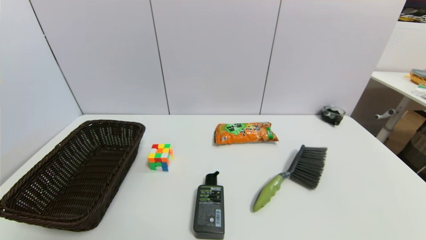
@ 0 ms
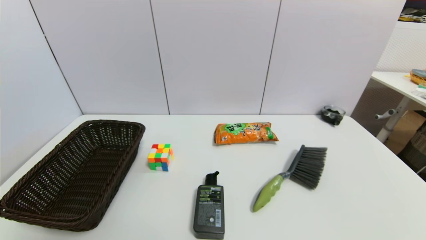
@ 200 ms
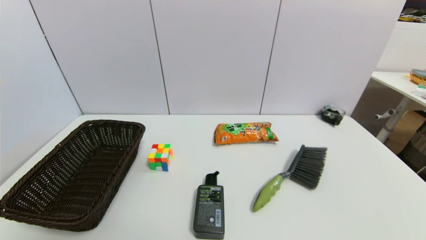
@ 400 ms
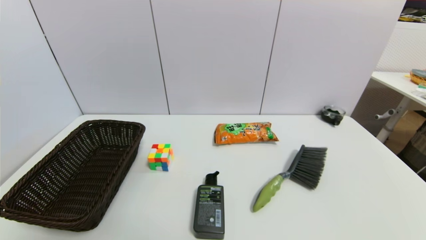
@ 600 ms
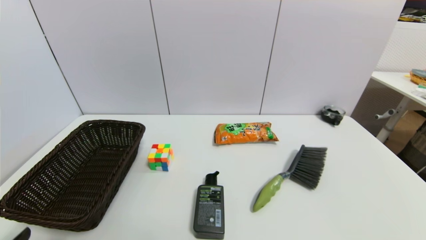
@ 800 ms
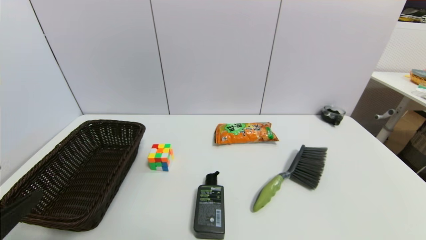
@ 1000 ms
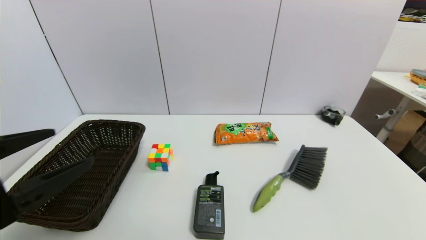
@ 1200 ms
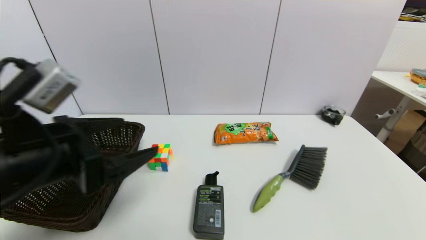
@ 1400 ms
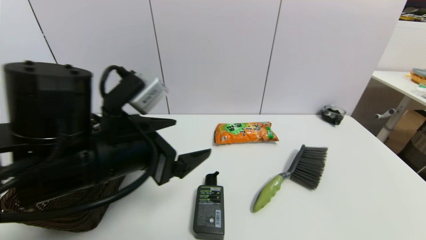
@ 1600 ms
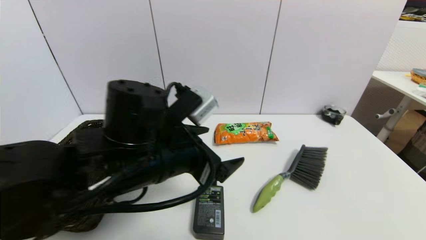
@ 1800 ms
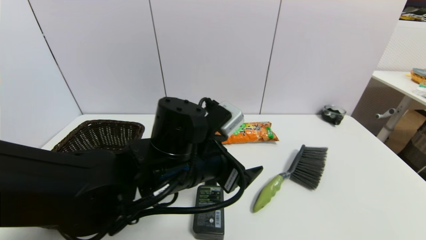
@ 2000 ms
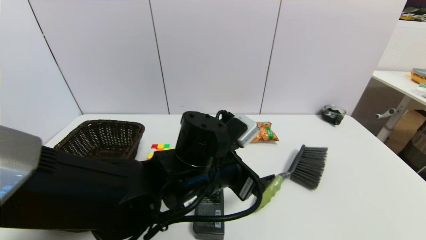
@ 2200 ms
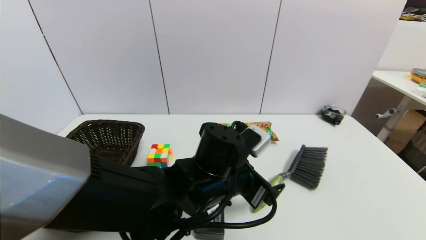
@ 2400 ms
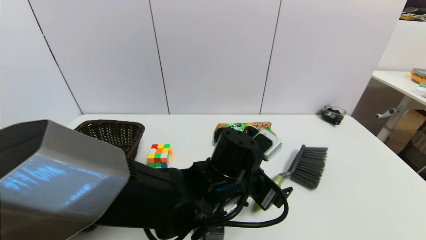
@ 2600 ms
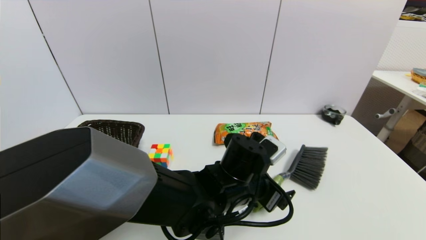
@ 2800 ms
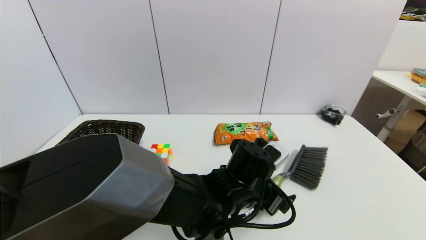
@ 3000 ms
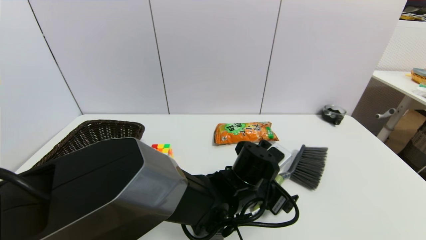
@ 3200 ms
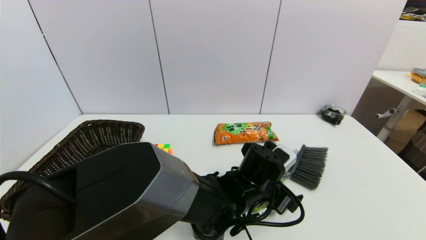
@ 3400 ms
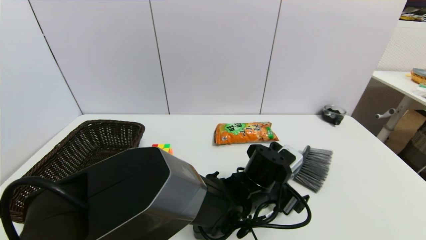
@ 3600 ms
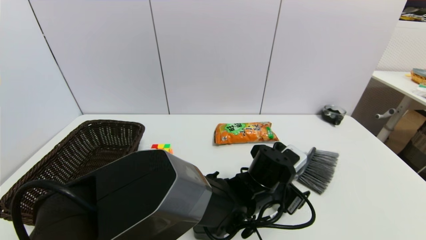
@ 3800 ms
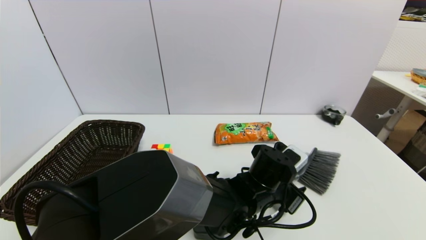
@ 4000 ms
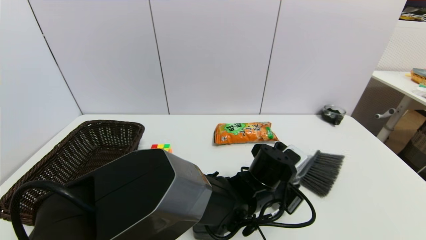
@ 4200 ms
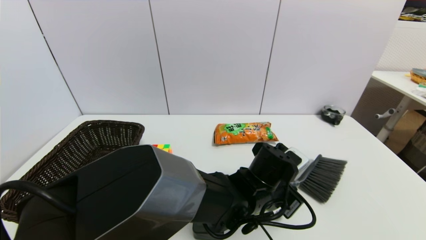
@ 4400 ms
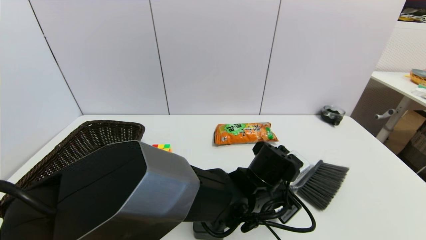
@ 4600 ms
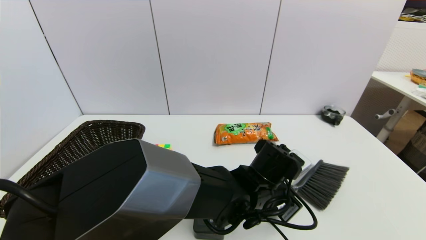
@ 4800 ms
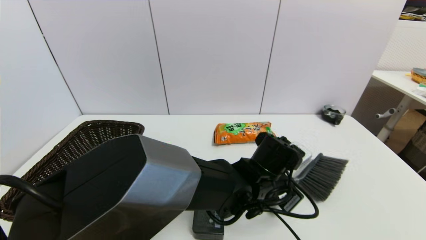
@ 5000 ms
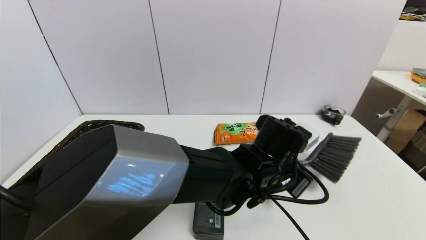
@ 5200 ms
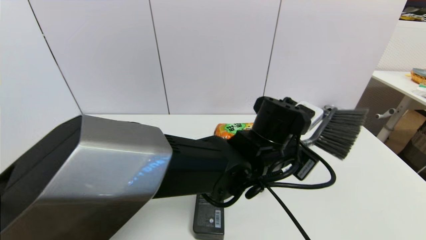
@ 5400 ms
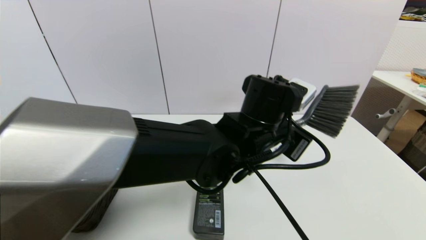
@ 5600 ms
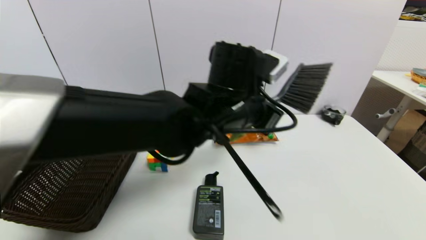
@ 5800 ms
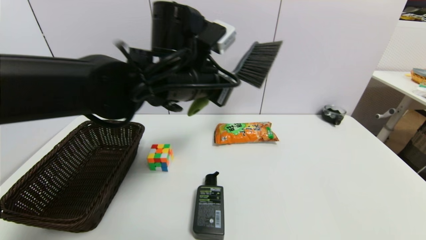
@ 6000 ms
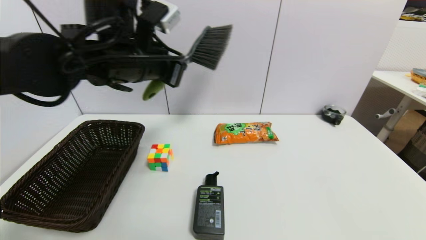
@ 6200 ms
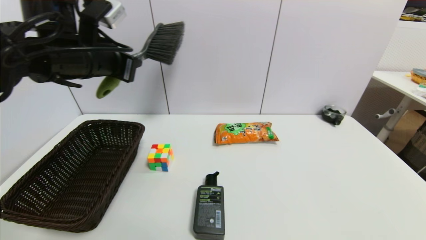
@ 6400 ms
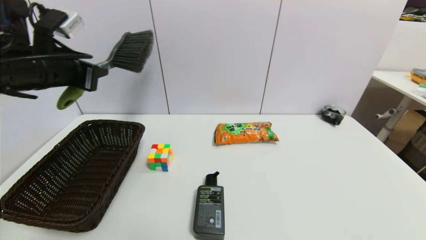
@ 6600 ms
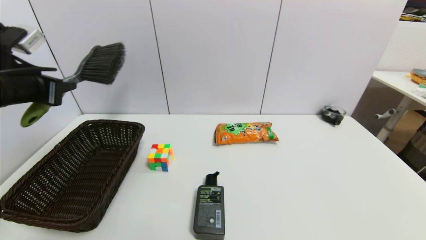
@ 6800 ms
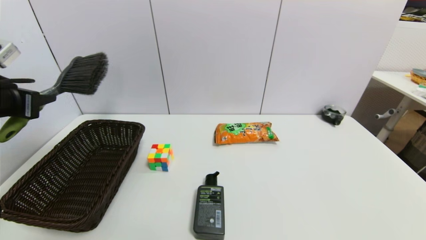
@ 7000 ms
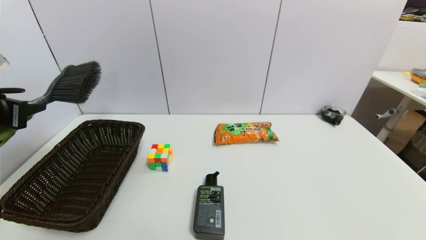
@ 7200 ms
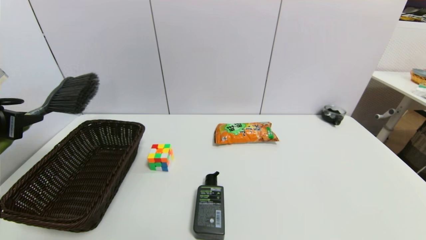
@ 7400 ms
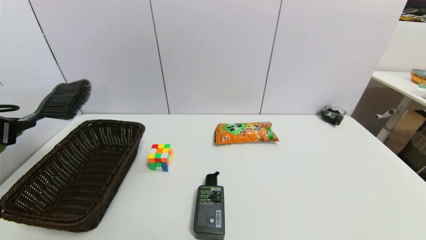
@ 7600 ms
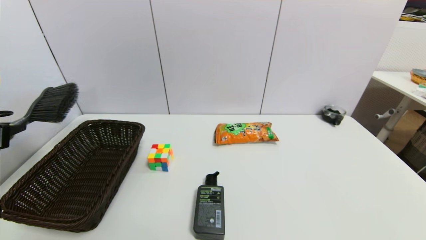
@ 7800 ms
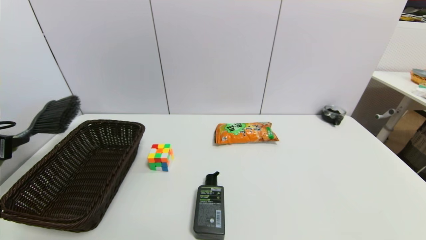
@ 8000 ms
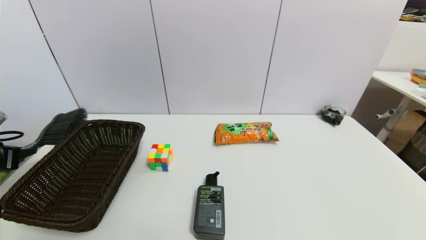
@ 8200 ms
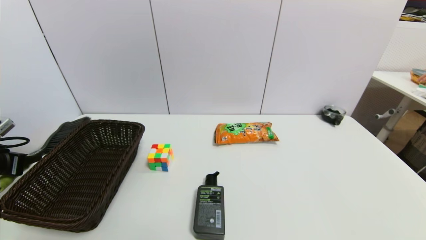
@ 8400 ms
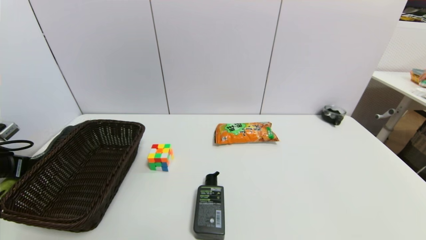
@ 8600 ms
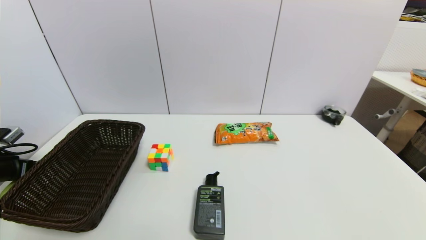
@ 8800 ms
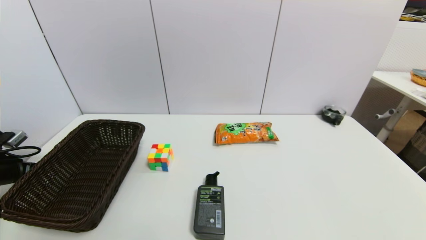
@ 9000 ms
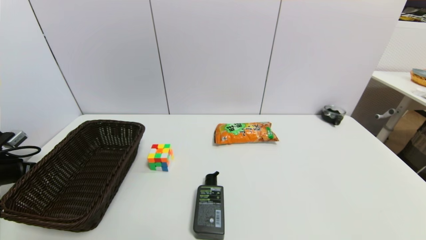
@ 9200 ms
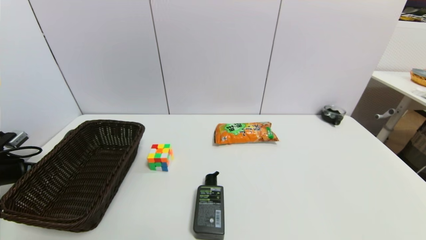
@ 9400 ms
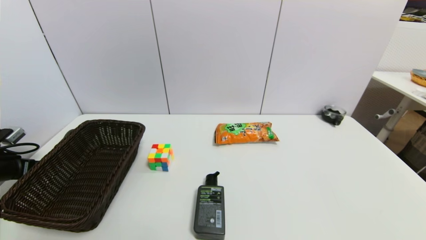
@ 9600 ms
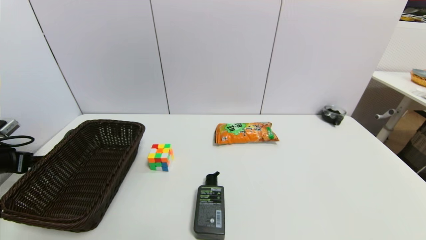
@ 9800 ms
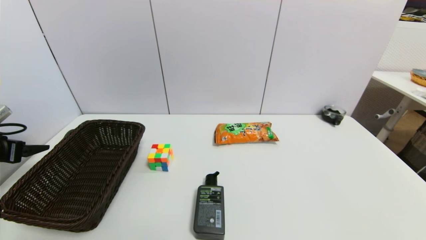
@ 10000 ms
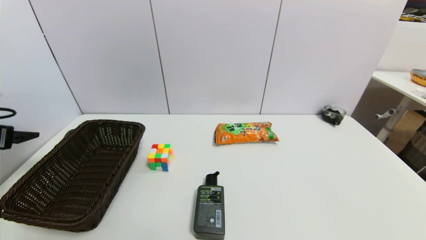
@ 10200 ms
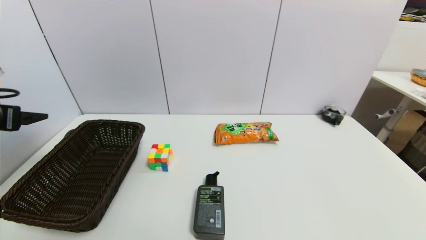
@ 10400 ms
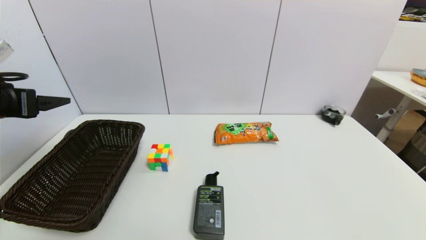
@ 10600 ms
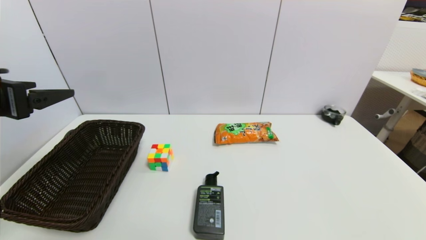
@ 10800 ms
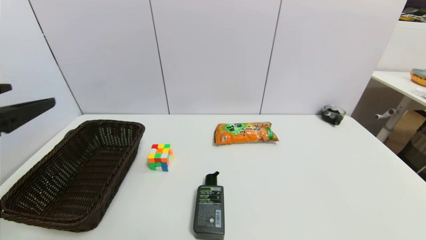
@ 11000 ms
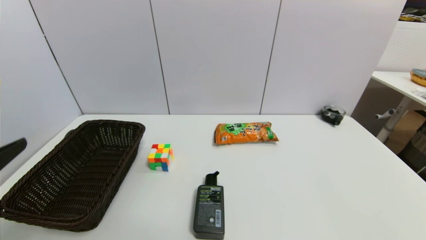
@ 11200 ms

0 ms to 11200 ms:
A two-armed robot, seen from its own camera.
Task of the whole recording: put the brush in the designated position.
Step, 0 ms to 4400 ms: Grasp the brush with left gripper.
Step, 4600 ms to 9200 ms: Place the brush on the table with left gripper.
0 ms to 1600 ms: The left gripper heads forward, to the right and upward, covering roughly 30 cm.
1600 ms to 3200 ms: The left gripper shifts approximately 25 cm to the right and downward.
3200 ms to 4800 ms: The left gripper closes.
4800 ms to 6400 ms: The left gripper moves to the left and upward, approximately 40 cm.
6400 ms to 8000 ms: The left gripper moves to the left and downward, roughly 30 cm.
8000 ms to 9600 ms: The left gripper heads downward, covering approximately 10 cm, and opens.
9600 ms to 11200 ms: The left gripper moves backward, to the right and upward, approximately 35 cm, and opens up.

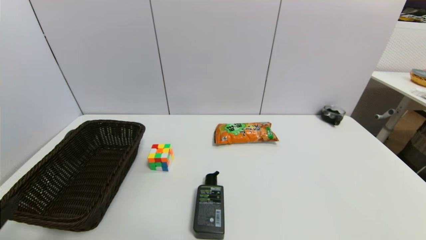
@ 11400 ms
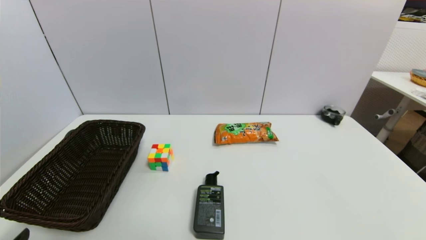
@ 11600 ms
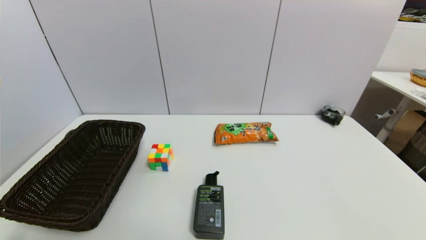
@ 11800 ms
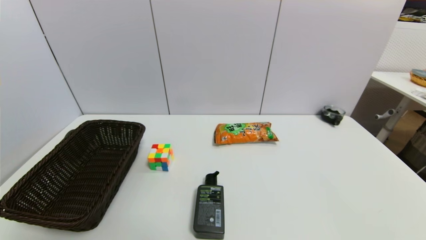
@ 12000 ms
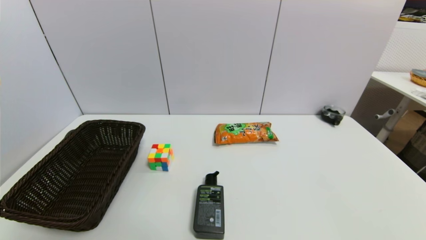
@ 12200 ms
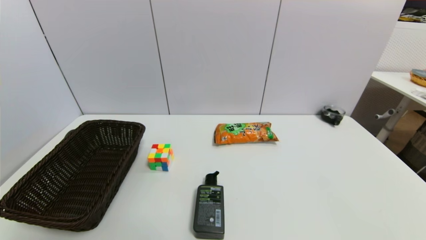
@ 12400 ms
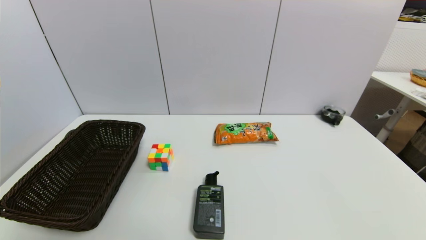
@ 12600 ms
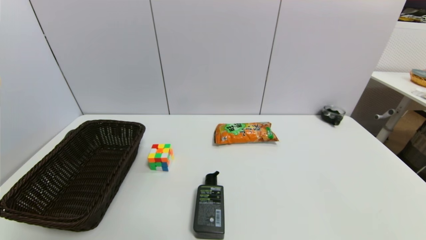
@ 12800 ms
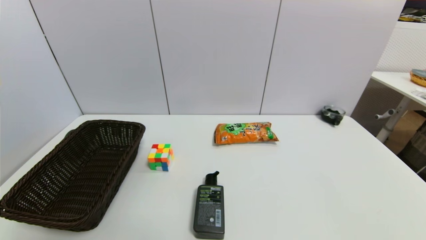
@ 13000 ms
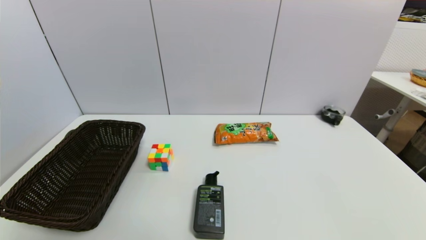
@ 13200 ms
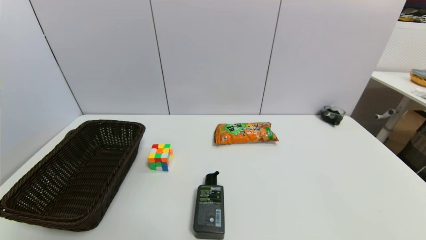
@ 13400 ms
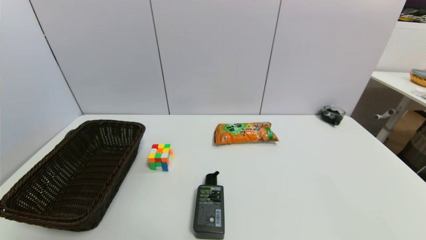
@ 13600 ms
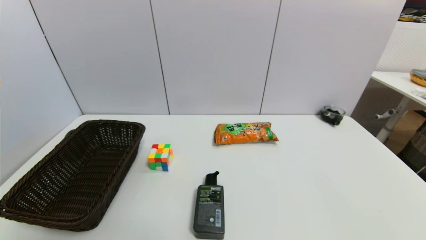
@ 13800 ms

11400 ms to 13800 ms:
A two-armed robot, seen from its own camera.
Task of the whole recording: put the brush in the designated position.
12600 ms to 13800 ms: Both grippers stay put.
